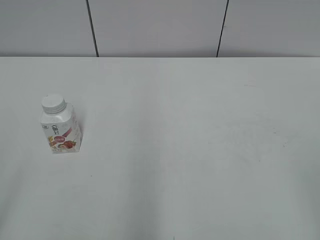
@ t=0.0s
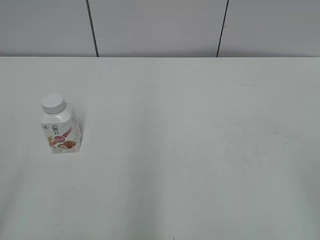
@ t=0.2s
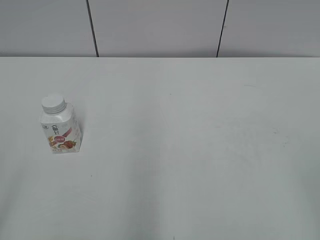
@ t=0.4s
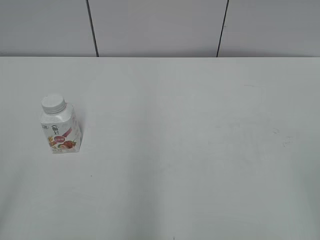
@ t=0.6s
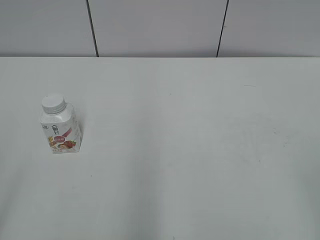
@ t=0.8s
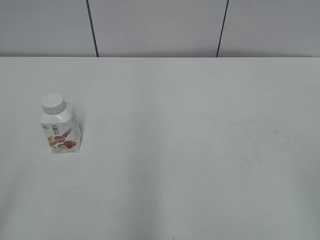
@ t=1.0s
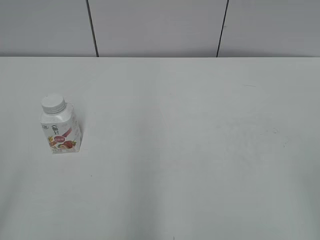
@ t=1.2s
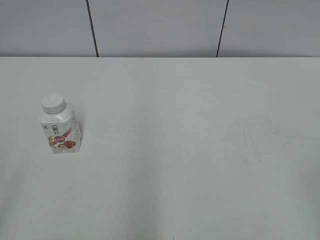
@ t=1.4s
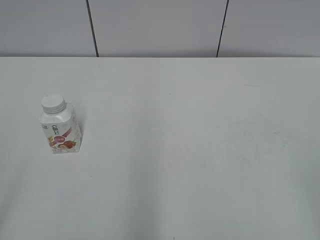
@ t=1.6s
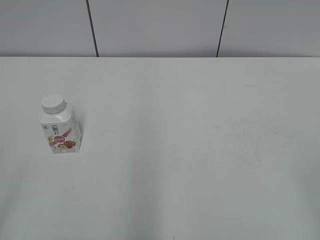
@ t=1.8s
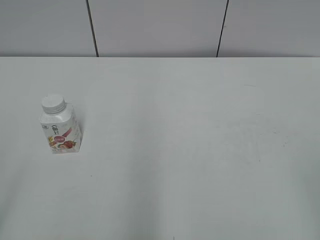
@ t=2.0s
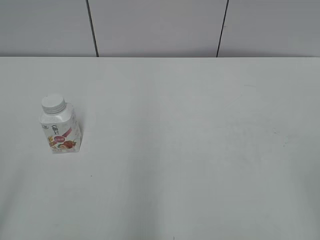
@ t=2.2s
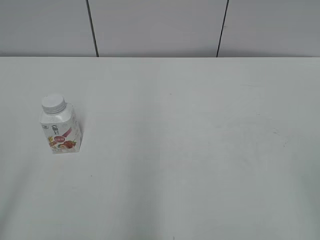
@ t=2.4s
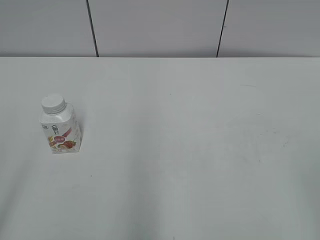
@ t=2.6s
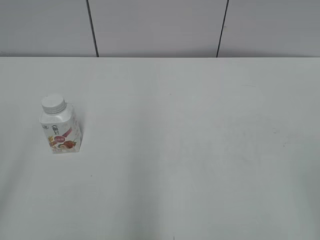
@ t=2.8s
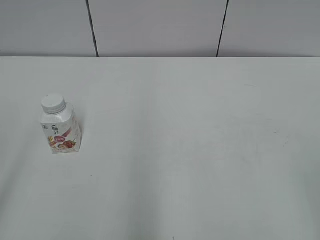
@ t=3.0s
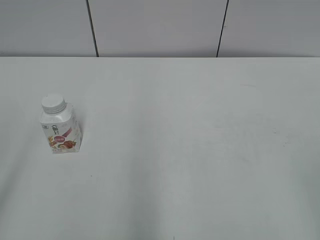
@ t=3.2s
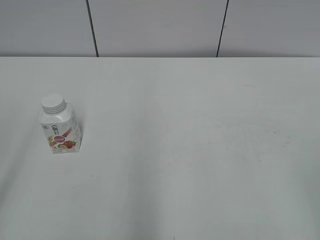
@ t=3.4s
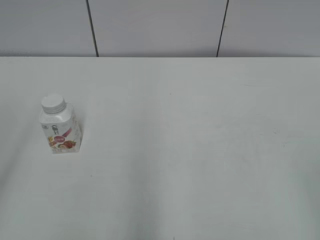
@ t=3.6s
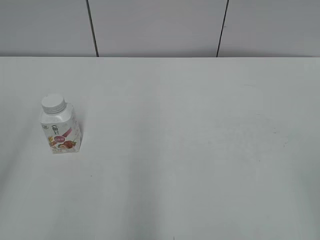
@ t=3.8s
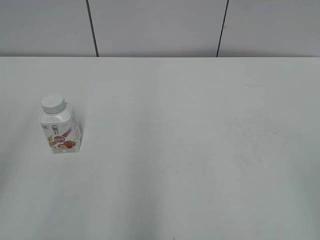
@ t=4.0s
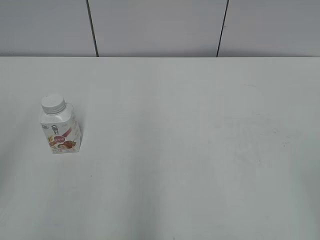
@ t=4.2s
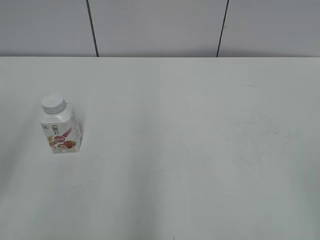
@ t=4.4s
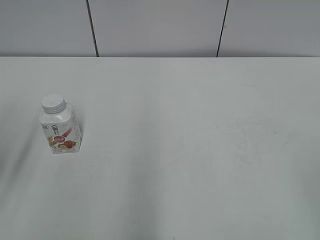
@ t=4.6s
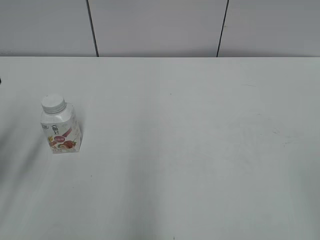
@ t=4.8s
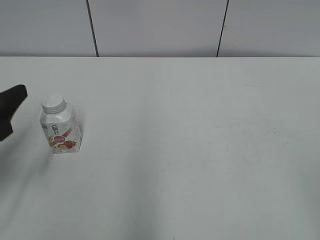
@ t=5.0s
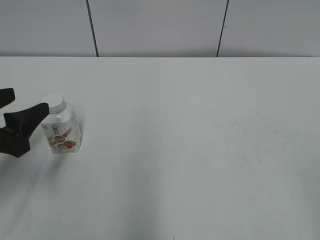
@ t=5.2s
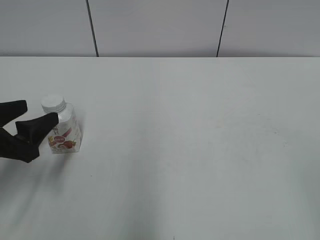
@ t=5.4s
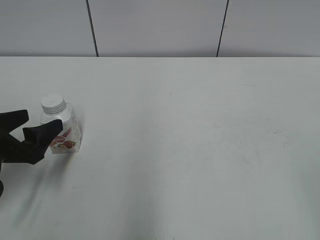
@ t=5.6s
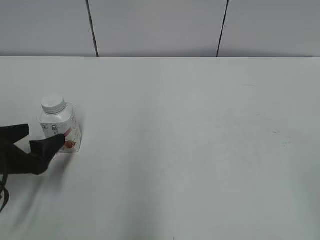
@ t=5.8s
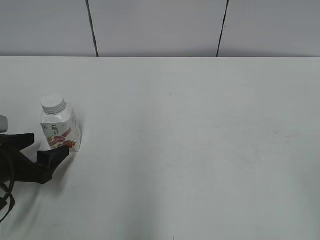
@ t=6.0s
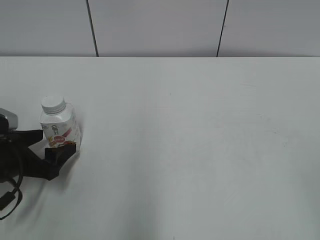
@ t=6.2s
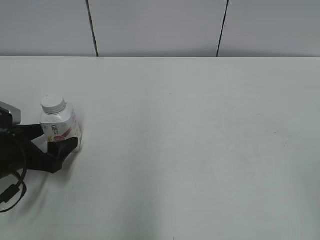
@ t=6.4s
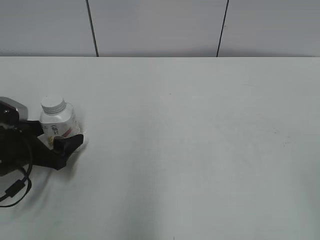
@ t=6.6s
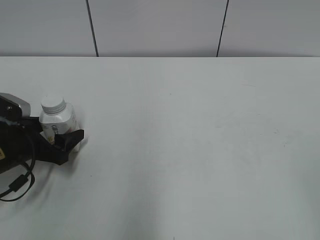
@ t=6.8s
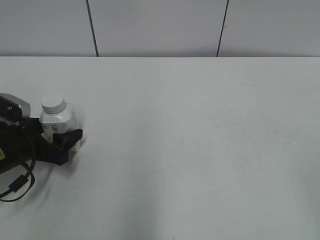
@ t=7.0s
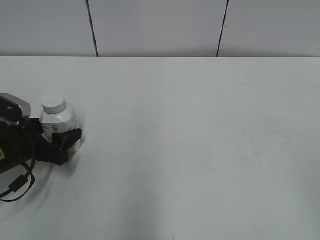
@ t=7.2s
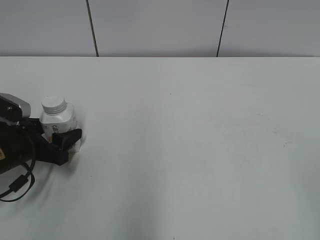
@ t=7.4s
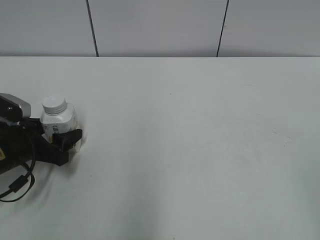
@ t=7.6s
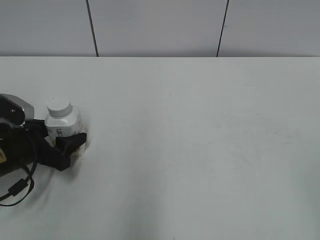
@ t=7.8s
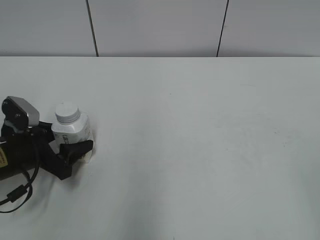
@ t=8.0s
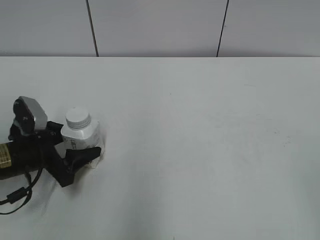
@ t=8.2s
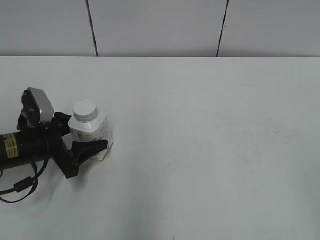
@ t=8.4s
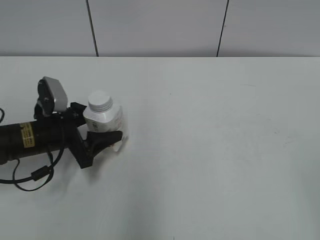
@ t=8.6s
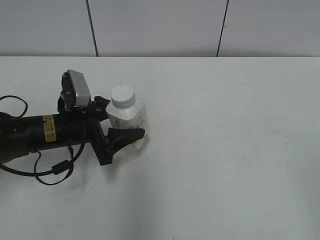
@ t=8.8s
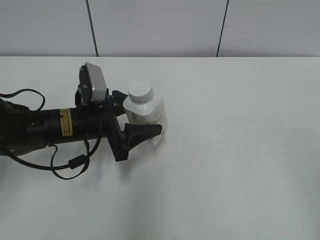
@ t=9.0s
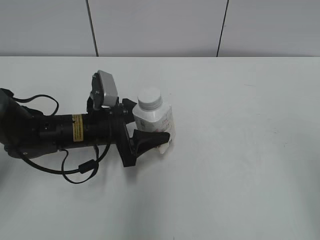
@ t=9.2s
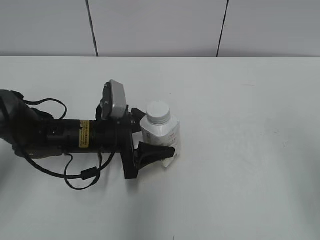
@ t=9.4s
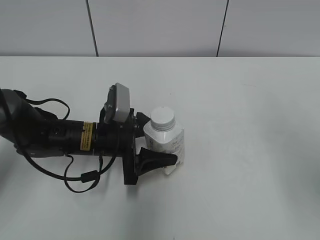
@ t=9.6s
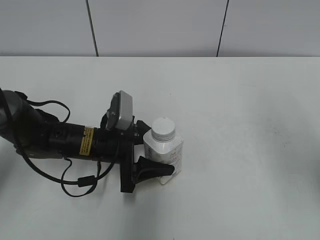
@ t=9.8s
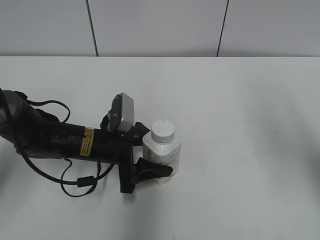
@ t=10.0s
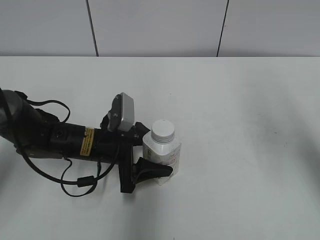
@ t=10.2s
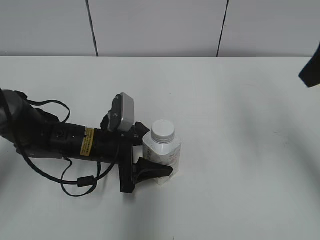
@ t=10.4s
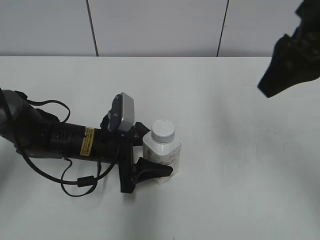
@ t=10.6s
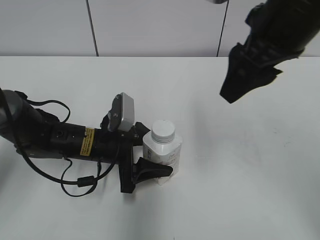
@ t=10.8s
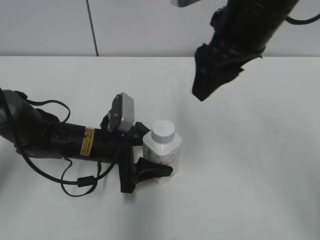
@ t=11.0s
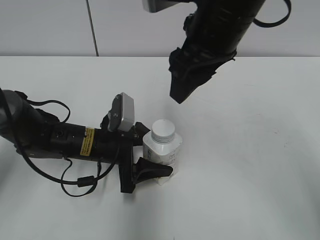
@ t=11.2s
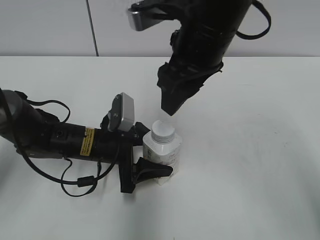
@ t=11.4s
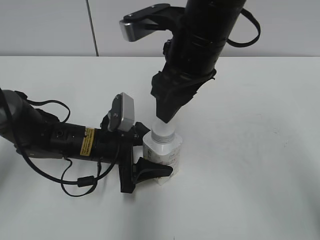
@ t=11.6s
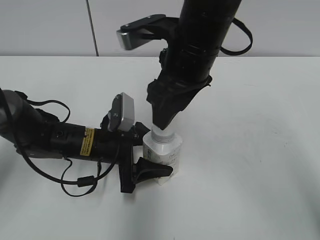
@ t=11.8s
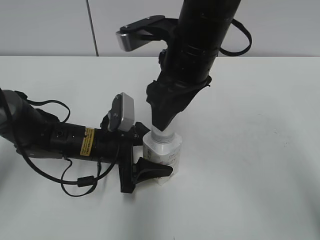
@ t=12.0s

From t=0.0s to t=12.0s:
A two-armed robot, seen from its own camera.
Step, from t=0.0s to t=7.2s: Grab the Yili Changqing with the left hand.
Step, from t=7.4s to t=10.0s: Move the Yili Changqing from left to right.
From t=4.4s to t=6.0s: The left gripper travels downward and forward by approximately 20 cm, and opens its fingers.
From t=6.0s to t=7.6s: The left gripper travels forward by some 5 cm, and closes its fingers.
From t=7.6s to t=9.0s: The left gripper shifts about 10 cm to the right.
From t=9.0s to t=10.4s: The right gripper is displaced forward by about 20 cm, and closes its fingers.
From t=10.4s to t=12.0s: The right gripper travels to the left and downward by about 20 cm.

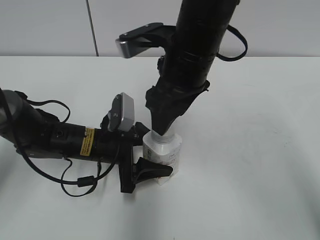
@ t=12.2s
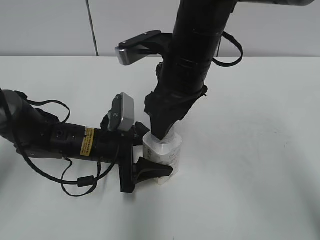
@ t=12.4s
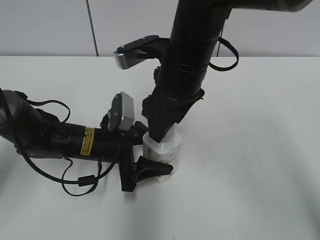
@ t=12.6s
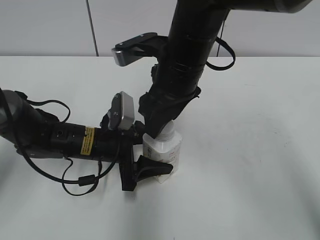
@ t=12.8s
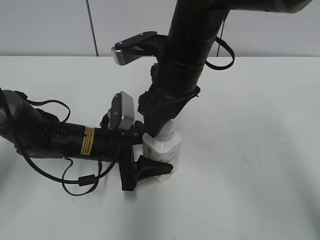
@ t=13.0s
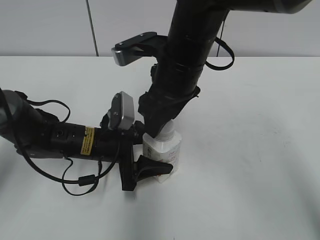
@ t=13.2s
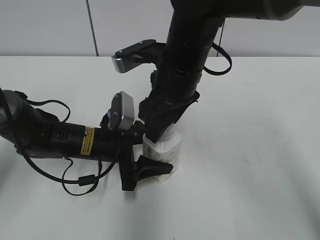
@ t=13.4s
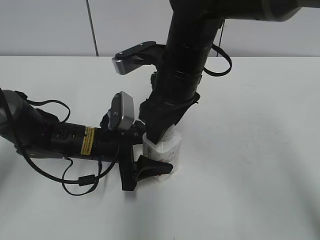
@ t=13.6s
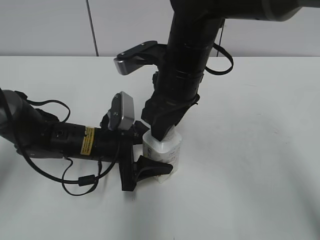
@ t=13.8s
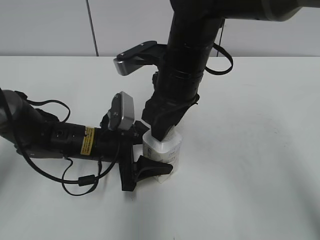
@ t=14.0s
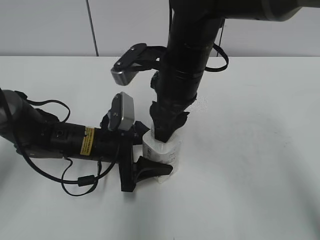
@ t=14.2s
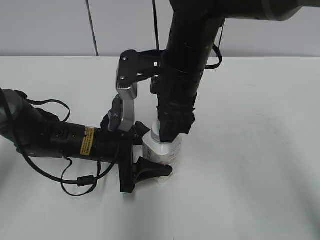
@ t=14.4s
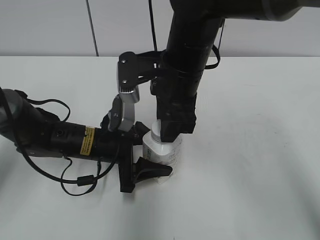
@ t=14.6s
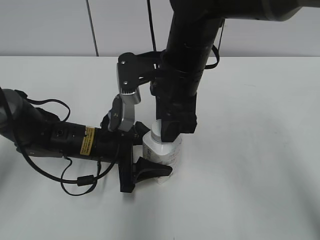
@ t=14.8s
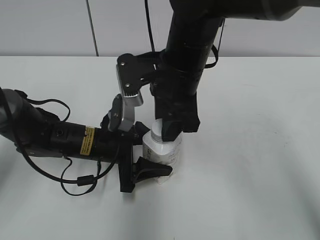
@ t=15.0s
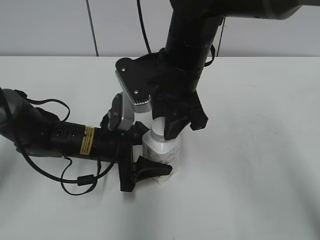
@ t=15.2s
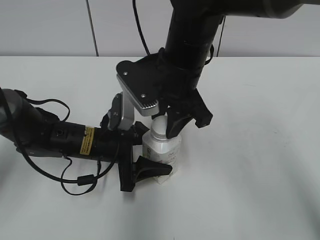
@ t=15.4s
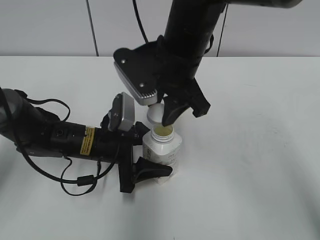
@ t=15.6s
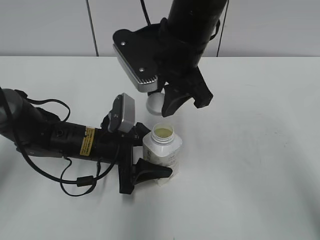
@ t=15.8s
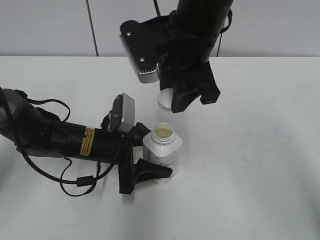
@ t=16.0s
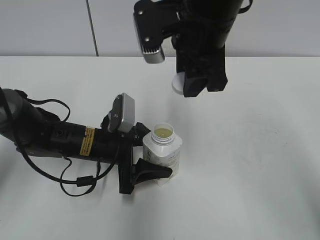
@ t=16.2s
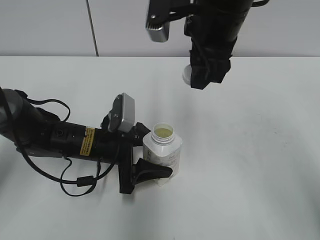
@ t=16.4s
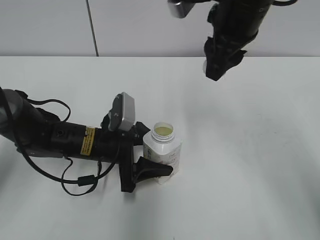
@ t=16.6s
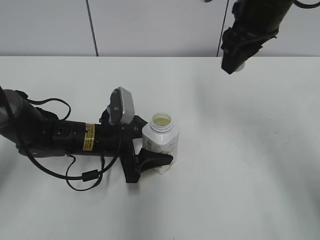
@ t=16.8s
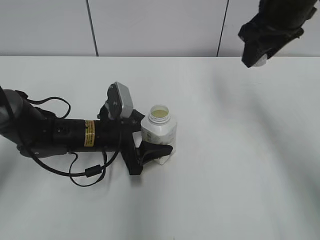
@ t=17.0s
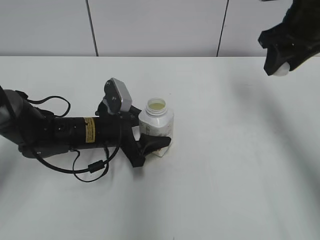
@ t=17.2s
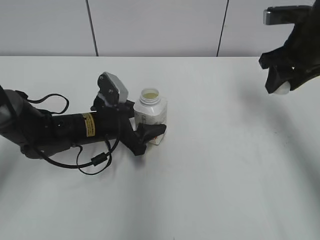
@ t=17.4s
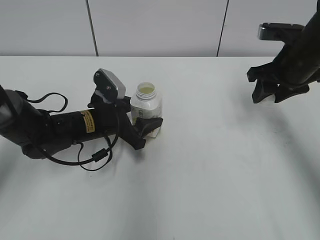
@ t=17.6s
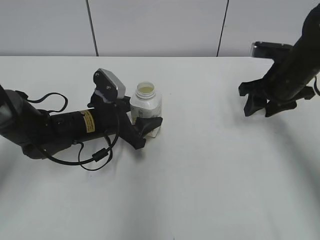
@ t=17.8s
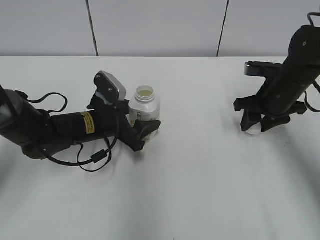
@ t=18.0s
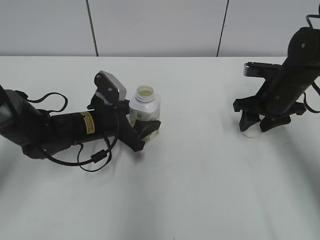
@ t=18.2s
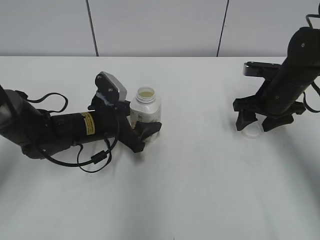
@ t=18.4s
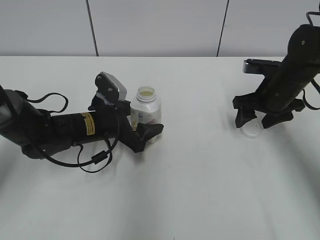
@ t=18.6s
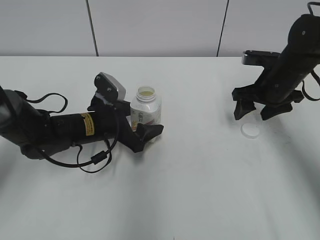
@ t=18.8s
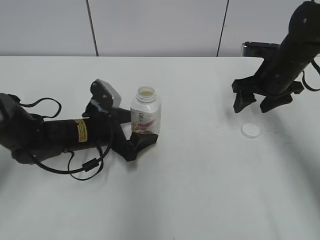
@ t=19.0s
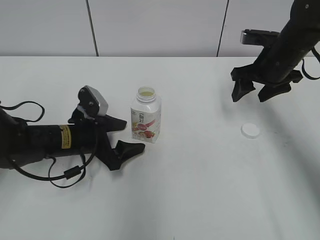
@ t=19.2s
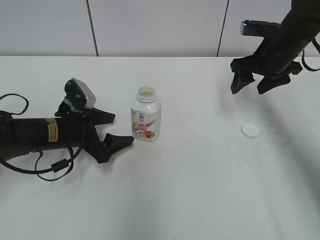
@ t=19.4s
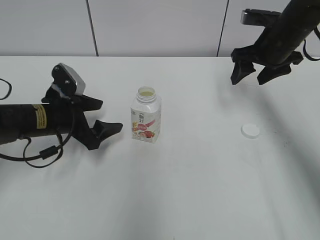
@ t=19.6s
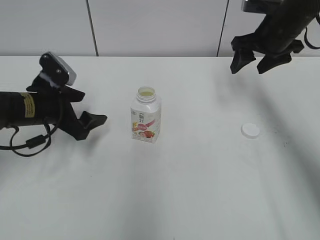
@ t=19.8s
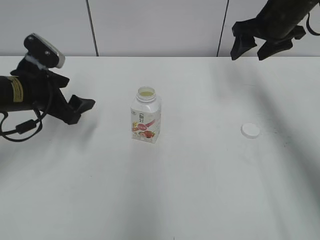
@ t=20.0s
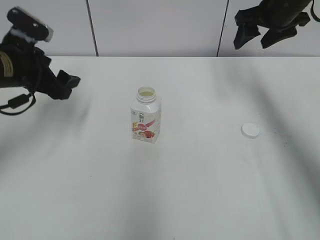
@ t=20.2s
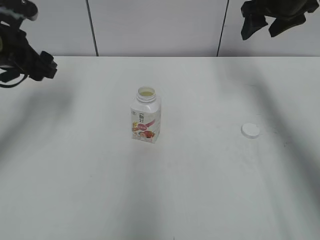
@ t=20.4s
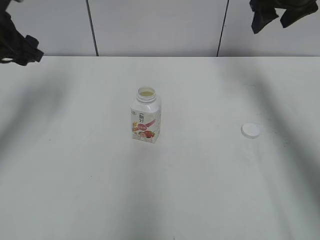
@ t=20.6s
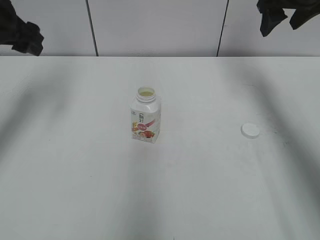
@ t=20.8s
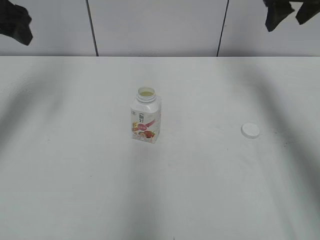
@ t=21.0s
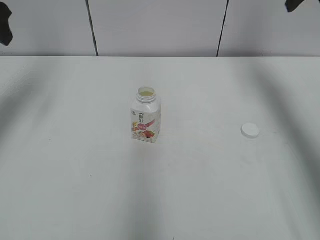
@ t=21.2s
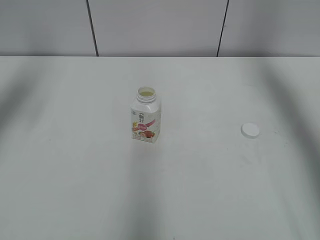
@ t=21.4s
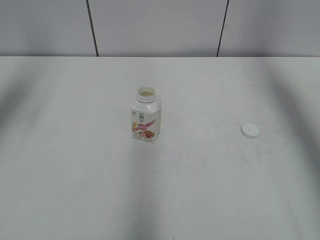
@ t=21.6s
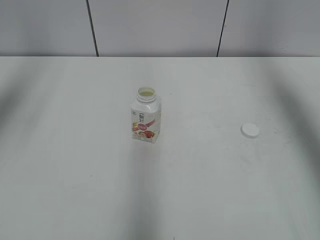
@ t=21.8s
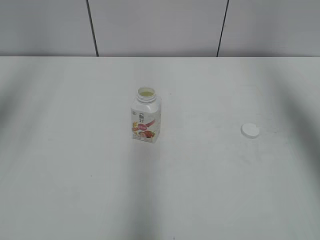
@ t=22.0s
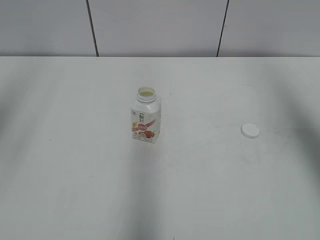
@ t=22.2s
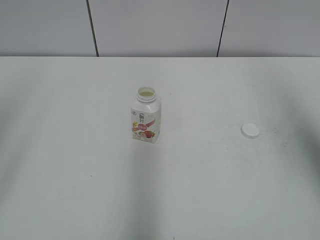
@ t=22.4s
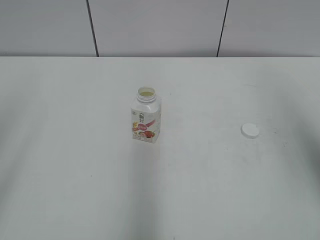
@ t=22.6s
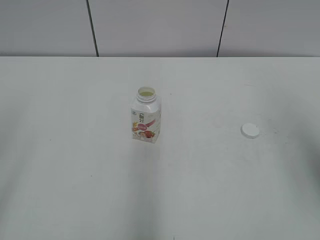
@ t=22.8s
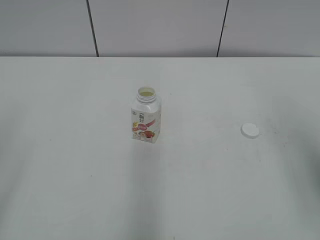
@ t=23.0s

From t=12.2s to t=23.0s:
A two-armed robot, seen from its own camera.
Step, from t=15.6s to t=18.2s: Place the bottle cap on the right.
From t=12.2s to t=13.8s: The right gripper closes up.
From t=15.2s to t=16.8s: The right gripper goes some 15 cm to the right and upward.
From t=16.8s to t=18.4s: The right gripper travels downward and to the right by approximately 20 cm, and opens.
From t=18.4s to t=20.0s: The left gripper heads to the left and upward, covering about 15 cm, and opens. Meanwhile the right gripper heads upward and forward, covering approximately 15 cm.
From t=20.0s to t=21.4s: The left gripper travels upward and to the left by roughly 20 cm. Meanwhile the right gripper shifts approximately 15 cm upward and to the right.
From t=21.4s to t=23.0s: The two grippers go some 30 cm backward.
